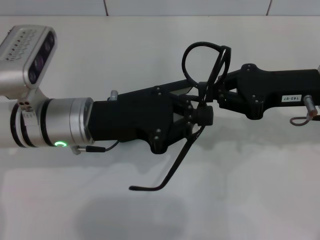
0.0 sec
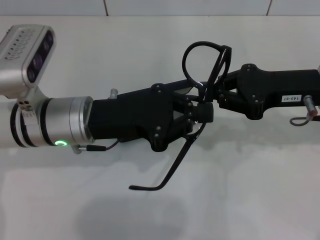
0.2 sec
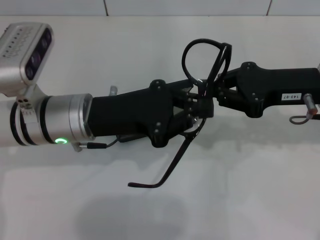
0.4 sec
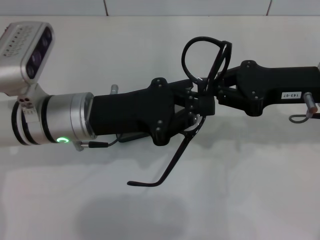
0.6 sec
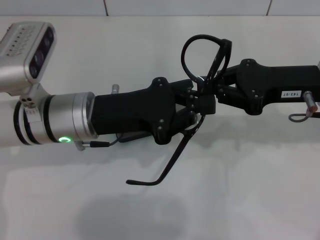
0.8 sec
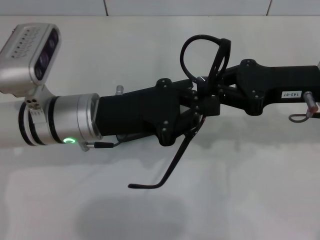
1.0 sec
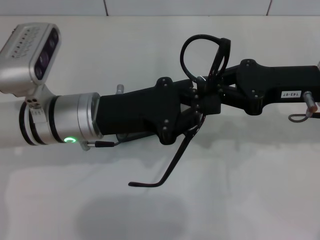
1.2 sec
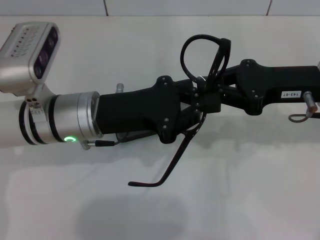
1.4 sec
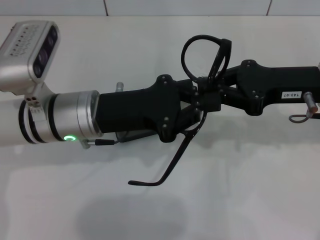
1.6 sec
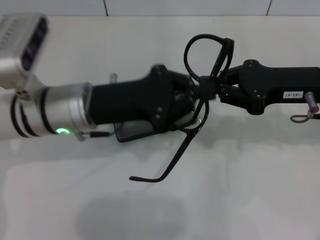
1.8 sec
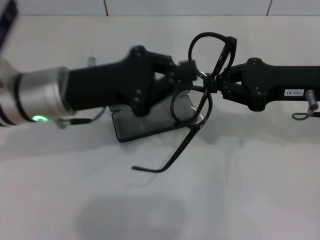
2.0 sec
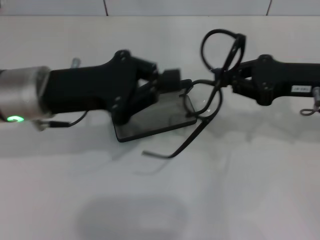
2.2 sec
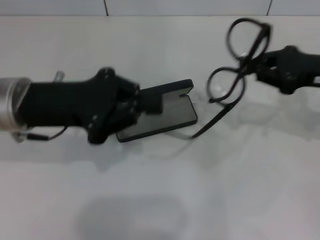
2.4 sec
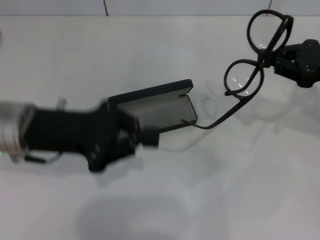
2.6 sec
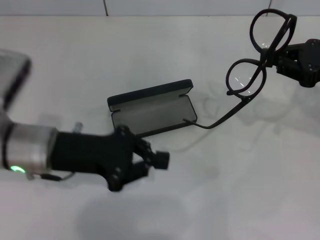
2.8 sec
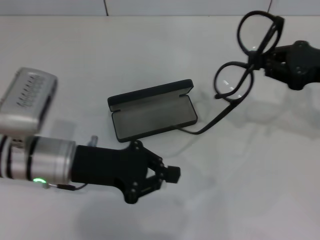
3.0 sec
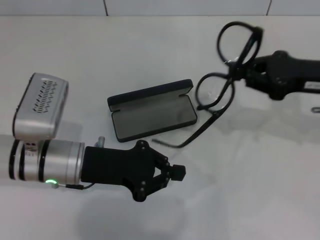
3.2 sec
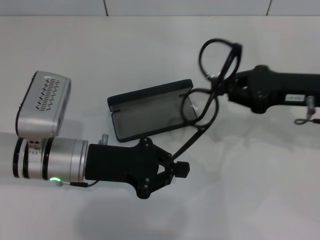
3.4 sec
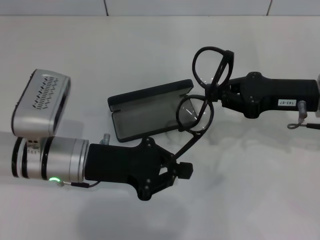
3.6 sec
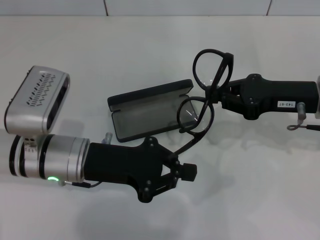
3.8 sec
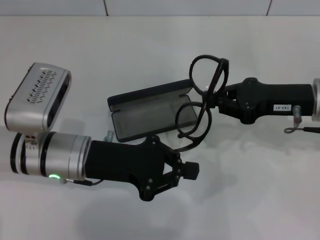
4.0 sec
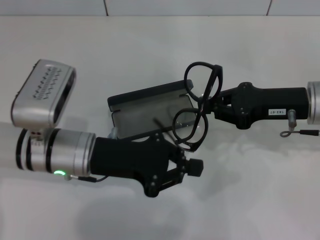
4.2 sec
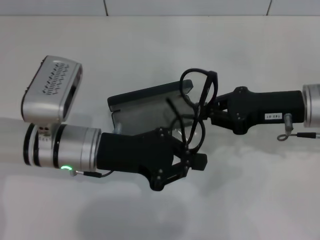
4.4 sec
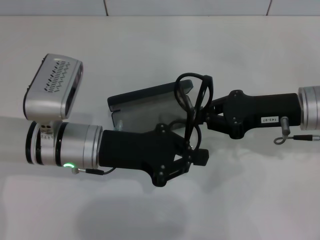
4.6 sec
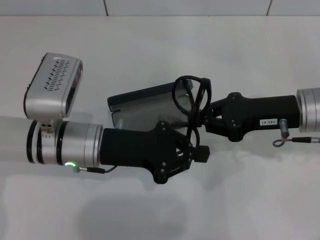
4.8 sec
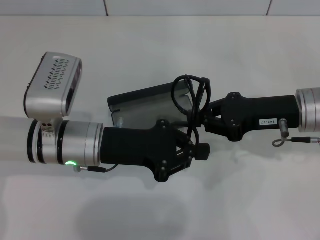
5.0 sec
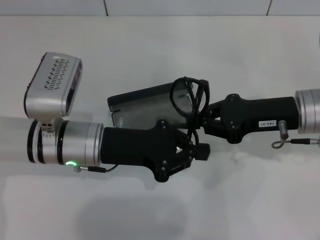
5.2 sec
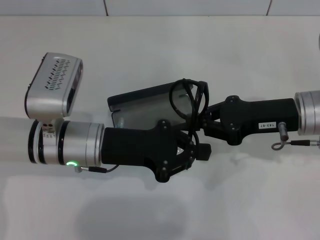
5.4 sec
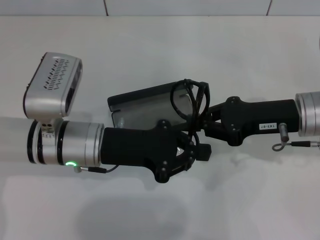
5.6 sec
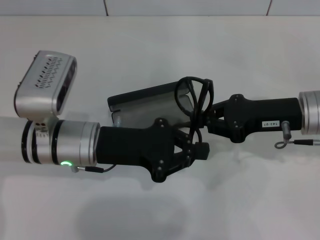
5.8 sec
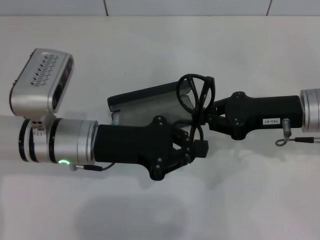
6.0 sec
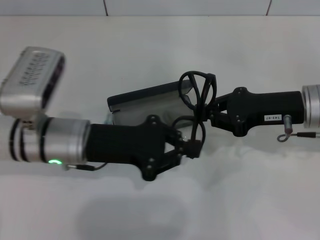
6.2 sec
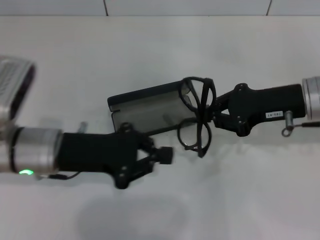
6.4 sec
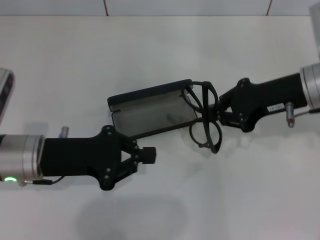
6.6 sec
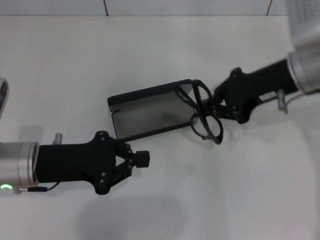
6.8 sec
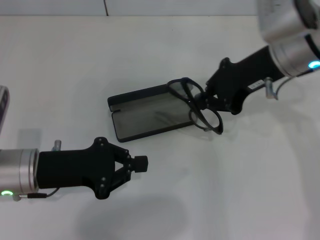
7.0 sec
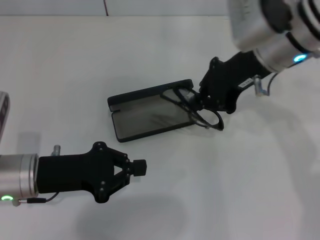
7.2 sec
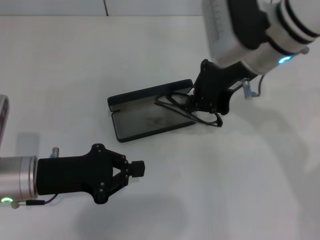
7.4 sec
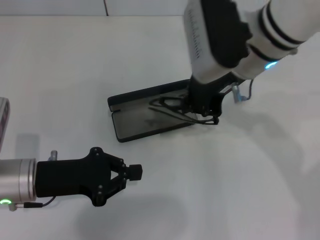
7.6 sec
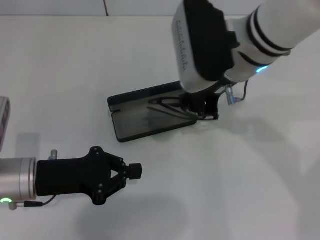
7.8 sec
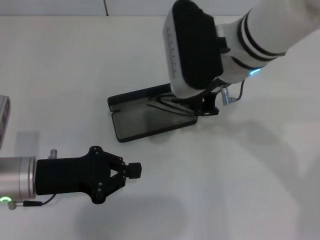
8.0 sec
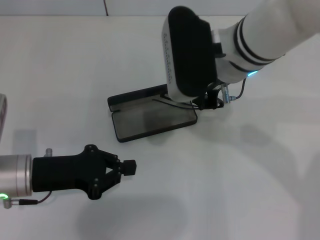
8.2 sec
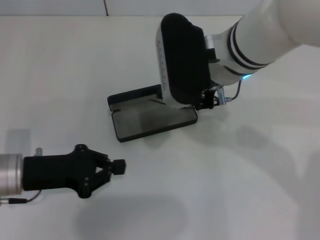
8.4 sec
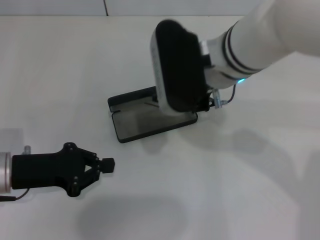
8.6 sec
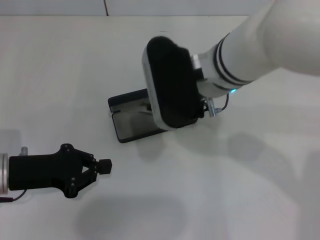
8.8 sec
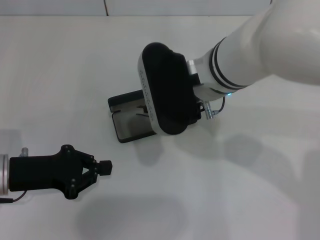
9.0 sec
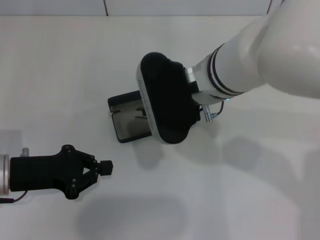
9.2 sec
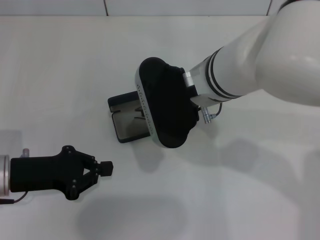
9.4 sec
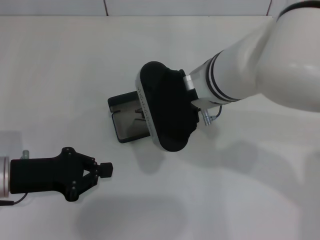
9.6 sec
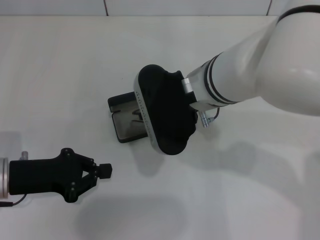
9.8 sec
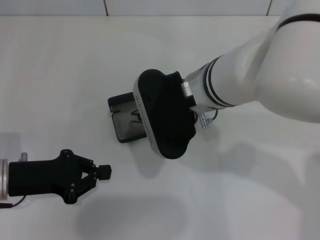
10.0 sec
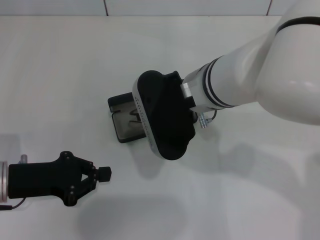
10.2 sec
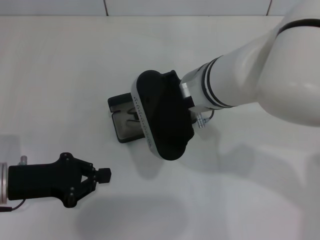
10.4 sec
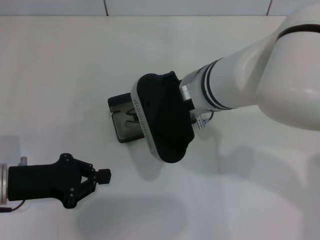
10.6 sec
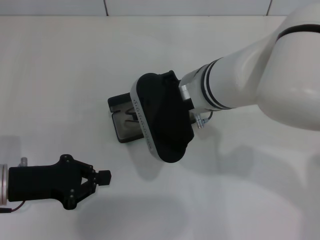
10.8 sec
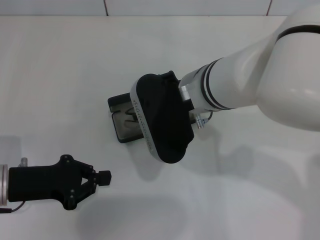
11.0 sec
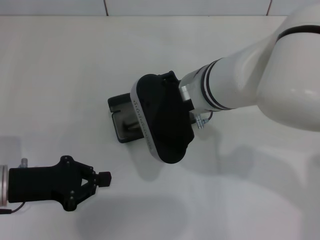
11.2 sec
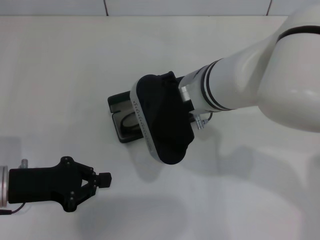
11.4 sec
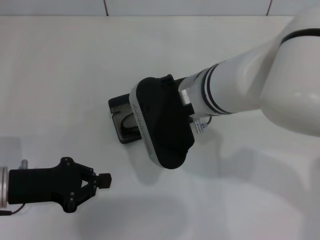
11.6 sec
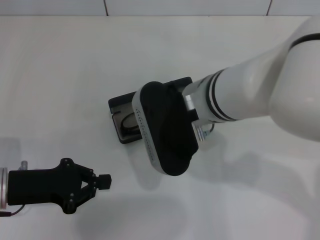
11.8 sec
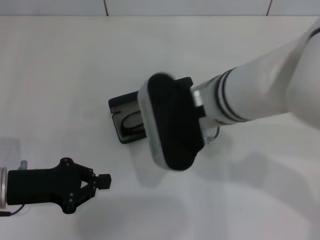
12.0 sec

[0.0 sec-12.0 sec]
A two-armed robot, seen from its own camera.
Step, 0.0 sec to 5.6 sec: Fold the frame with your left hand.
Step, 5.8 sec to 11.4 sec: Put the glasses into the case with your right hand.
0.0 sec to 1.6 sec: Neither gripper changes place.
1.6 sec to 3.0 sec: The right gripper heads to the right, covering approximately 5 cm, while the left gripper ends up some 5 cm from where it was.
3.0 sec to 4.4 sec: The right gripper shifts approximately 5 cm to the left.
4.4 sec to 6.0 sec: Both grippers stay put.
6.0 sec to 7.6 sec: The right gripper shifts roughly 15 cm to the left and upward. The left gripper heads to the left, covering some 10 cm.
7.6 sec to 9.0 sec: The right gripper changes place by roughly 5 cm.
9.0 sec to 10.4 sec: The grippers move only a little.
10.4 sec to 12.0 sec: The right gripper opens its fingers.

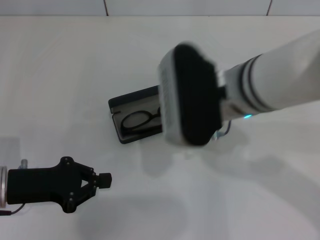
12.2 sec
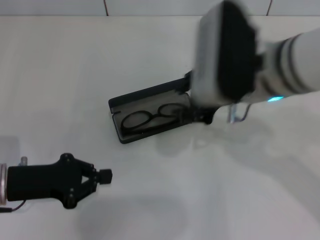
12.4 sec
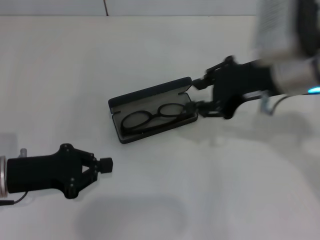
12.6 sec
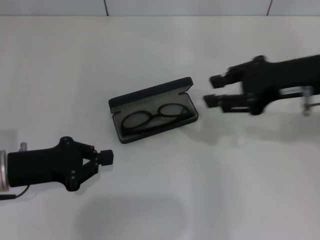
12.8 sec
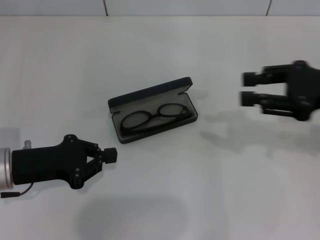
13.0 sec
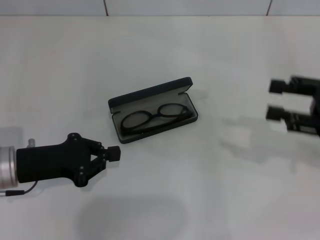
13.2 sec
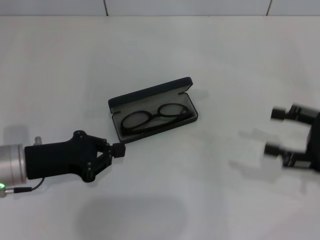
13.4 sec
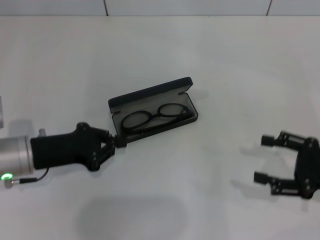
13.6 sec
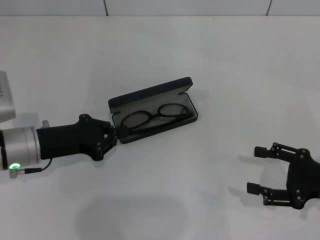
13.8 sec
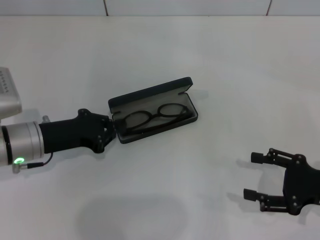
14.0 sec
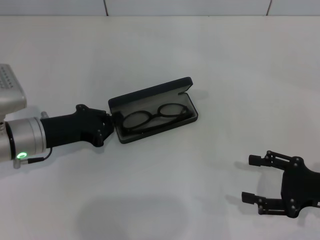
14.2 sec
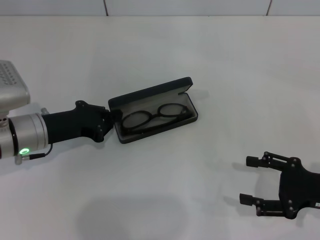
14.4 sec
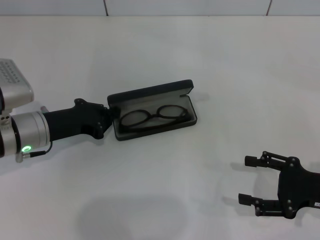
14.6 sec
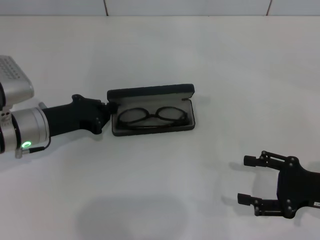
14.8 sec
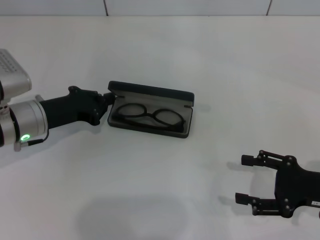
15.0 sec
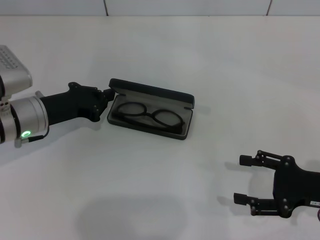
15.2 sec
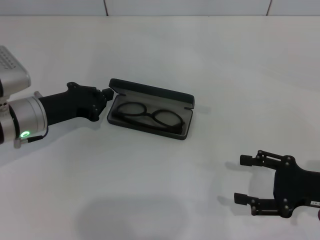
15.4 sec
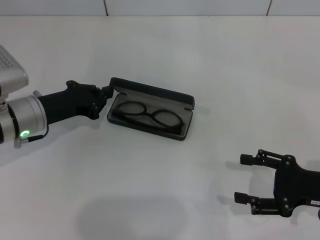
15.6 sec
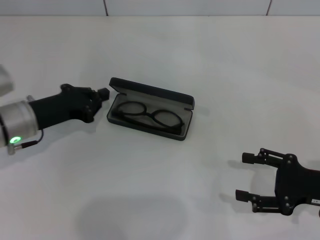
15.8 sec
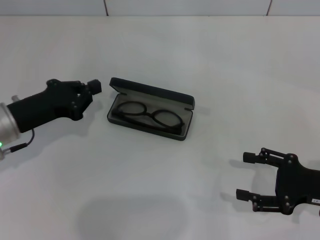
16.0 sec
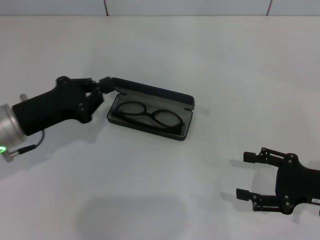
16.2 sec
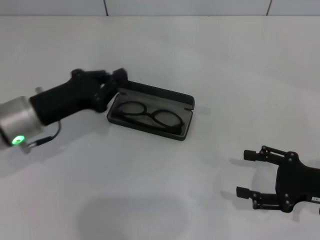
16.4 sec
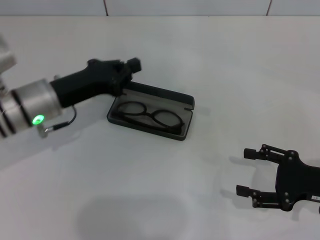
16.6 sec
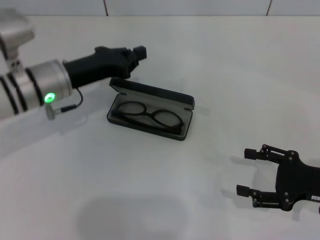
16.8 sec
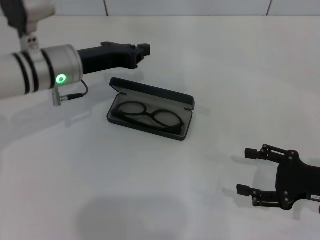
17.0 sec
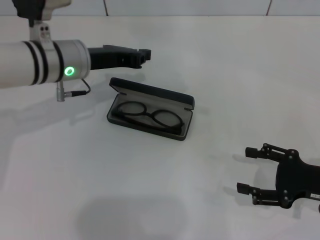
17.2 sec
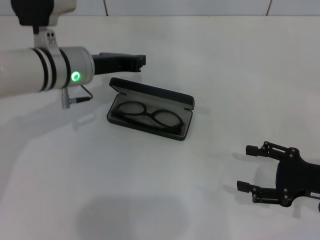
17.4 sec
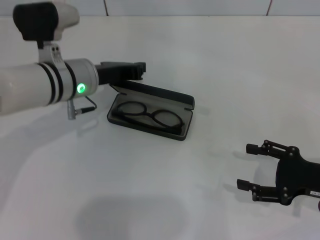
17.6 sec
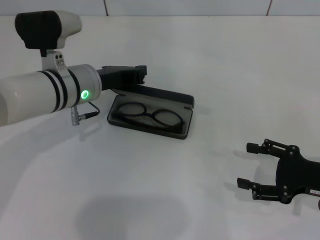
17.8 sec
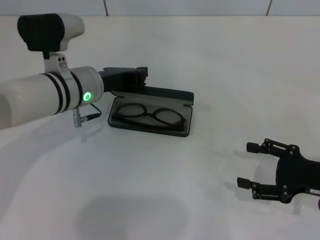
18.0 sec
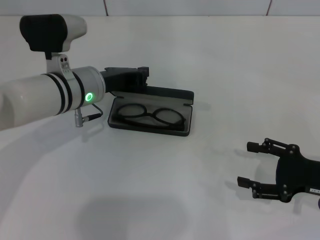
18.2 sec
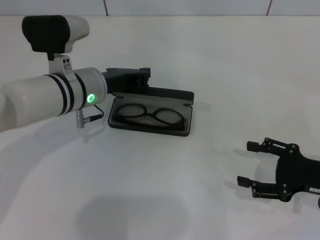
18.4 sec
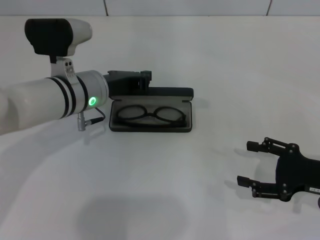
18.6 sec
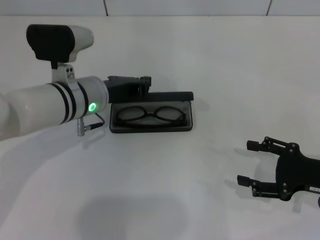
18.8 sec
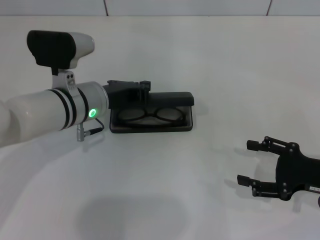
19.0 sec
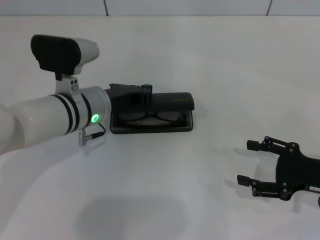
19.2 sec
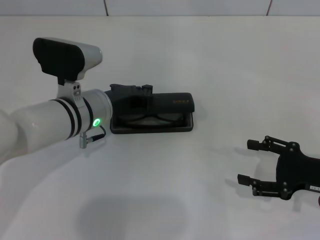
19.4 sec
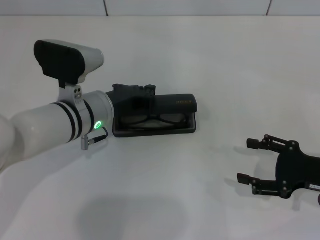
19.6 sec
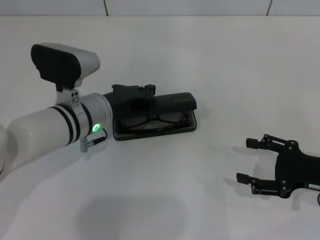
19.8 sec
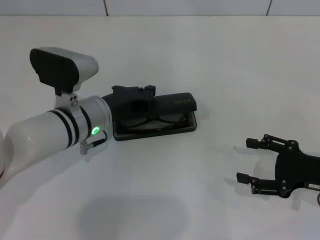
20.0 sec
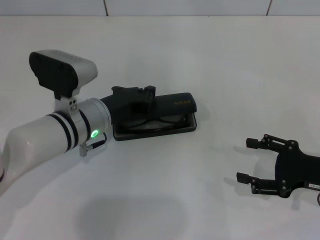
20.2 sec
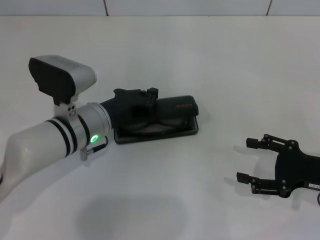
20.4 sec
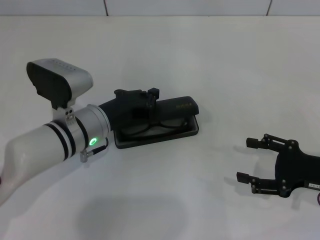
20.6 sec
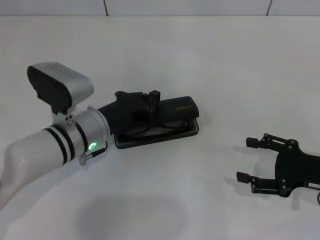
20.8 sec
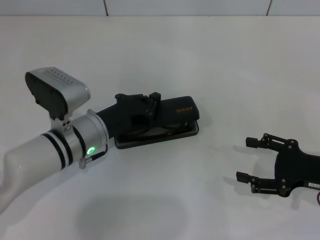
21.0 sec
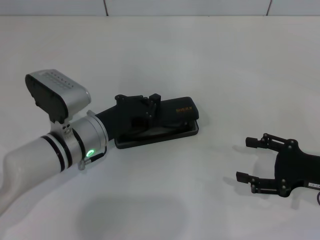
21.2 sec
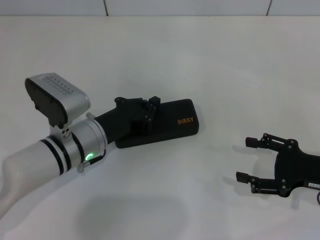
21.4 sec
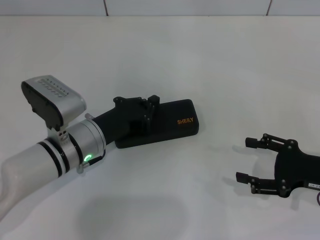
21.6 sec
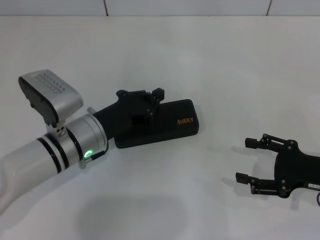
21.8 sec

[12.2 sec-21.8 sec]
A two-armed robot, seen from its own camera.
Step, 12.2 sec to 21.4 sec: Close the glasses case with your left hand.
12.2 sec to 13.8 sec: The left gripper moves forward, roughly 5 cm, while the right gripper shifts approximately 30 cm to the right and downward, and opens its fingers.
13.8 sec to 15.4 sec: The grippers make only small movements.
15.4 sec to 17.0 sec: The left gripper travels upward, to the right and forward by approximately 10 cm.
17.0 sec to 18.6 sec: The left gripper changes place by some 5 cm.
18.6 sec to 20.2 sec: There are only small adjustments of the grippers.
20.2 sec to 21.8 sec: The grippers move only a little.

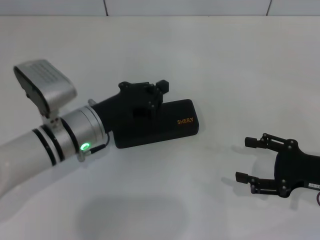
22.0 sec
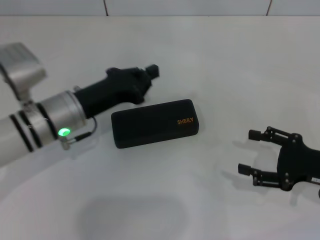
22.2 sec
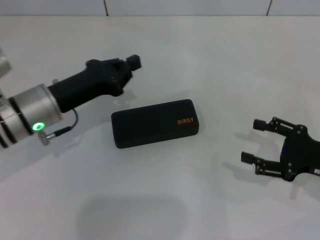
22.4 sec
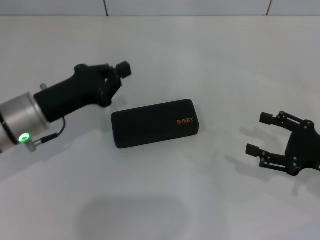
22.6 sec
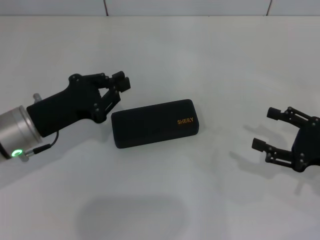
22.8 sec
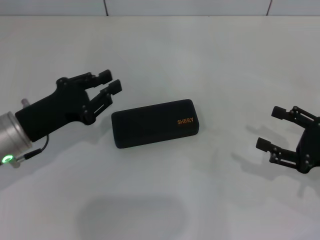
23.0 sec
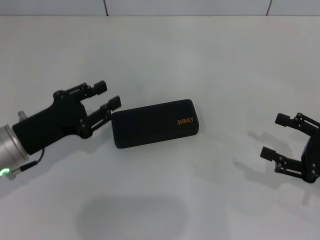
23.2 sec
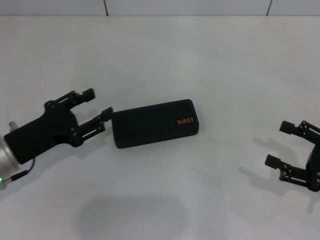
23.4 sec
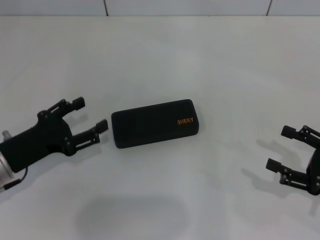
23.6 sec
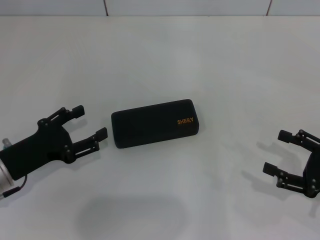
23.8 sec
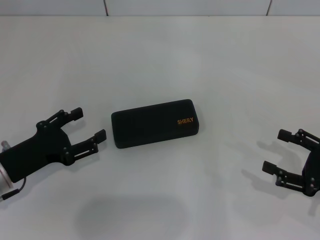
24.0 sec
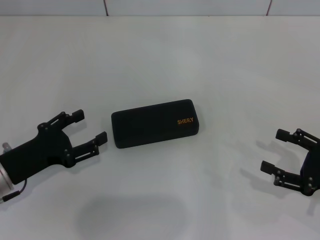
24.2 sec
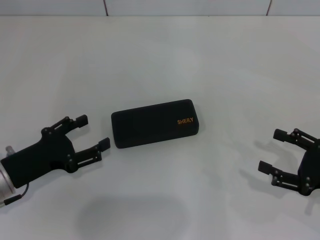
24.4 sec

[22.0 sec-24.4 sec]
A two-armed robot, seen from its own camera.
22.0 sec to 23.2 sec: The left gripper is displaced to the left by roughly 10 cm, and opens its fingers.
23.2 sec to 24.4 sec: The left gripper opens.
